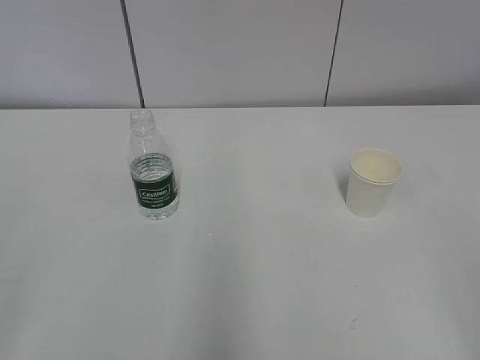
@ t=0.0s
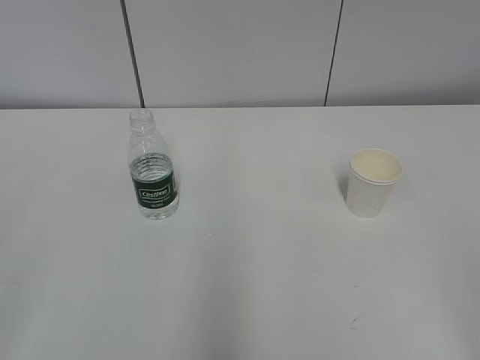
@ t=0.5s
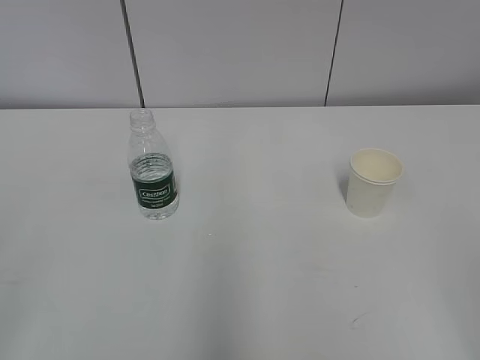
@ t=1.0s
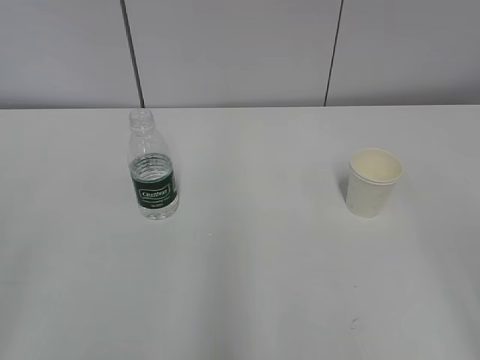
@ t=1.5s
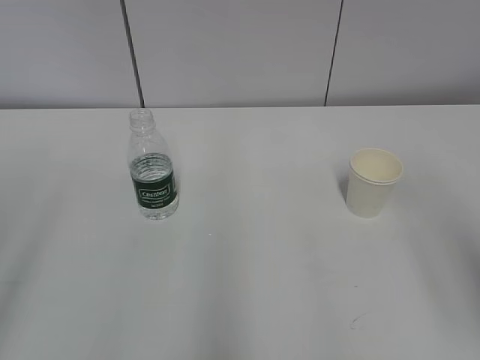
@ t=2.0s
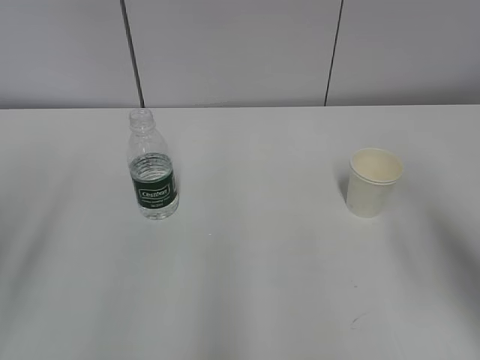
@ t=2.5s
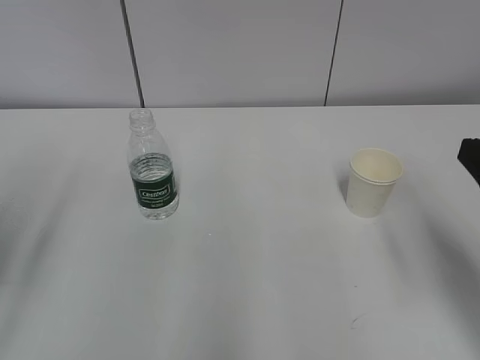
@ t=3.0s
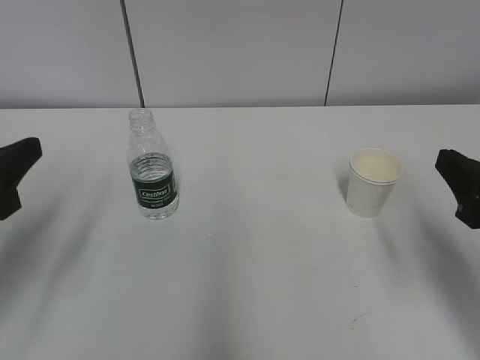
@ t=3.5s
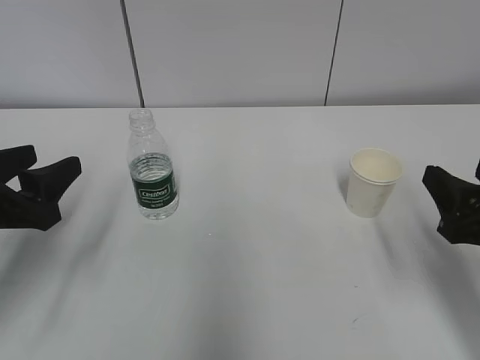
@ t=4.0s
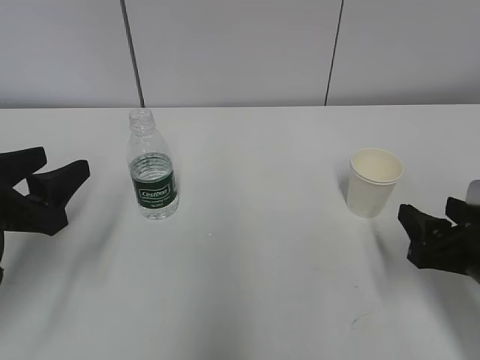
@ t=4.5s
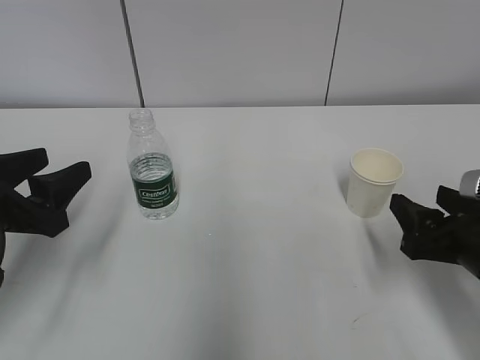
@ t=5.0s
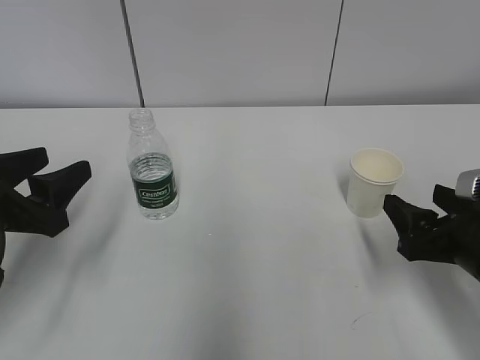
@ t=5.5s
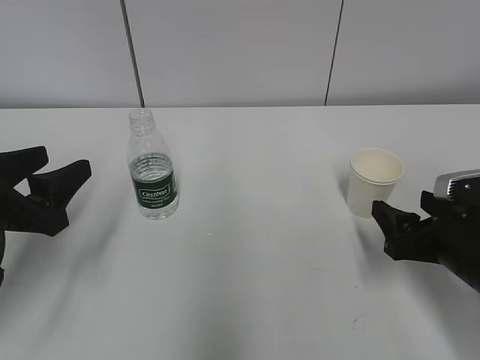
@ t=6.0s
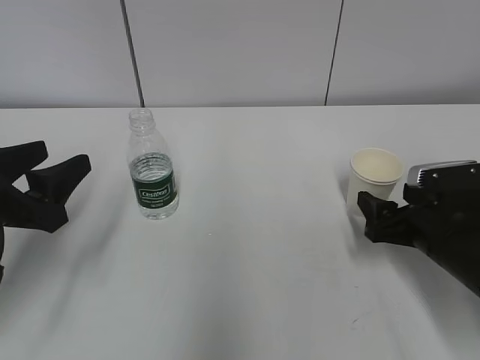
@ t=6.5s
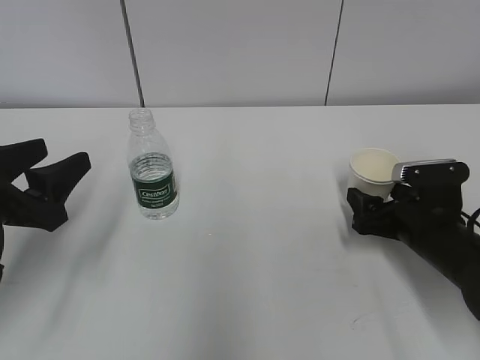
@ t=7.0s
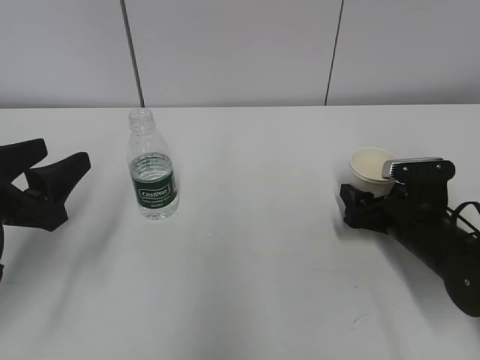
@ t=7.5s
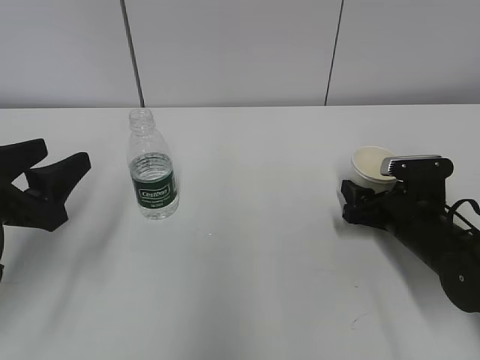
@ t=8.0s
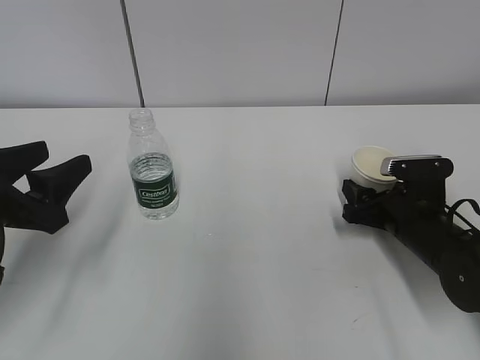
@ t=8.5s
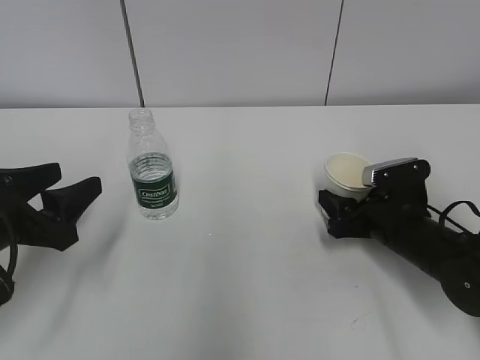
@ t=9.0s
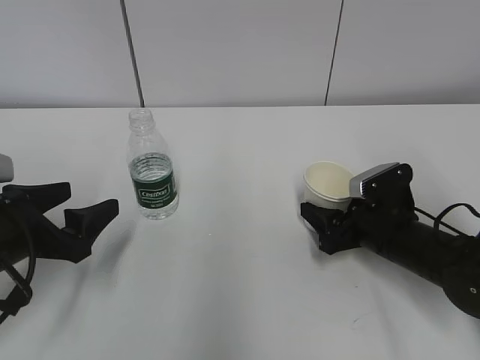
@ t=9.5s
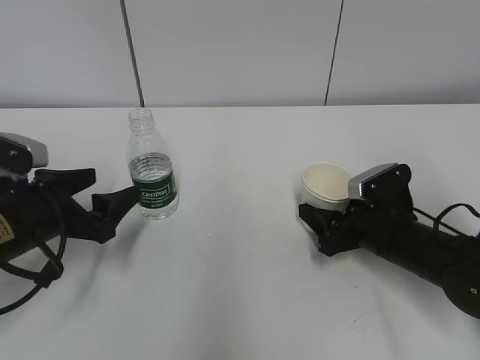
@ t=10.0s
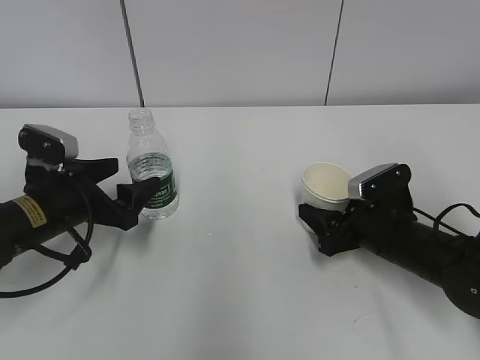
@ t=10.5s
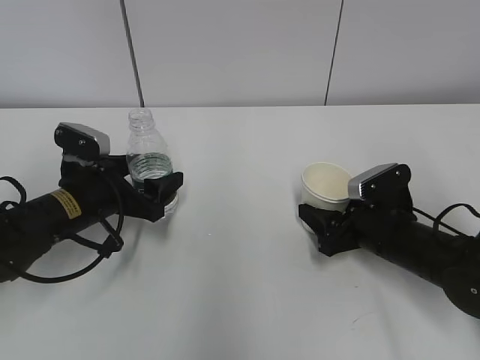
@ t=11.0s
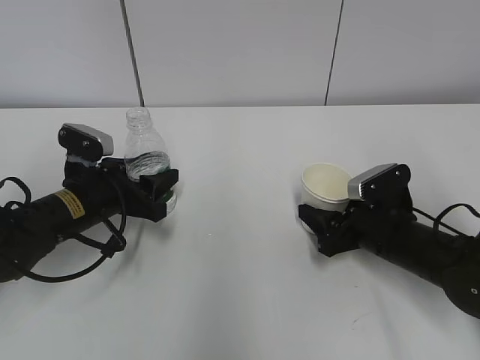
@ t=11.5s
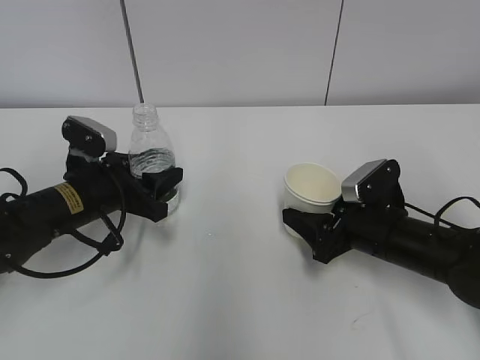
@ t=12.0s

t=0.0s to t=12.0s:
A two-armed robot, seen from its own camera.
Step, t=0.0s to t=6.5s: Grab the paper cup with the right hand.
Step, t=7.0s to t=9.5s: Grab the water bottle with the left hand.
t=2.0s to t=4.0s: The right gripper heads downward and forward, covering about 15 cm. The left gripper heads forward and downward, covering some 20 cm.
t=4.0s to t=6.0s: The right gripper travels downward by about 5 cm, and opens.
t=6.0s to t=8.0s: The right gripper travels forward and downward by roughly 10 cm, and closes up.
t=8.0s to t=10.0s: The right gripper closes up. Meanwhile the left gripper goes roughly 10 cm downward and forward, and opens its fingers.
t=10.0s to t=12.0s: The left gripper is displaced forward by some 5 cm, and closes up.

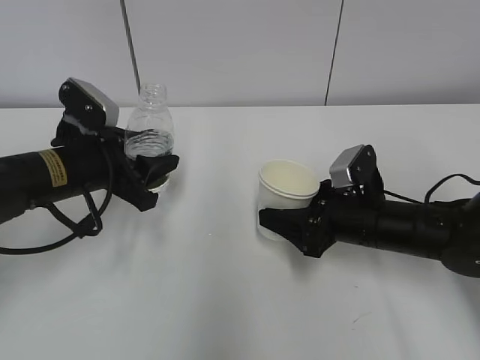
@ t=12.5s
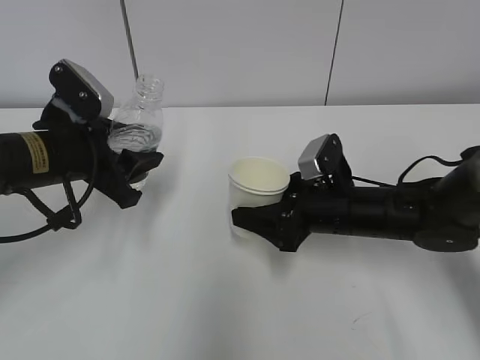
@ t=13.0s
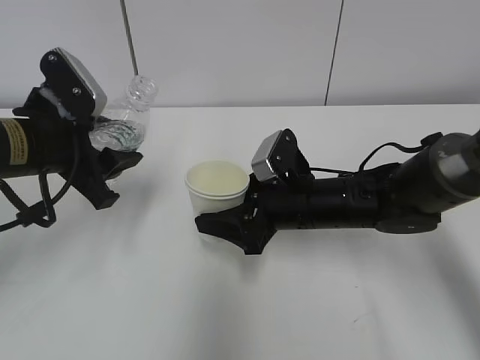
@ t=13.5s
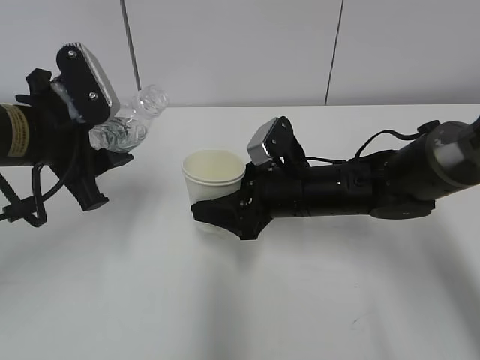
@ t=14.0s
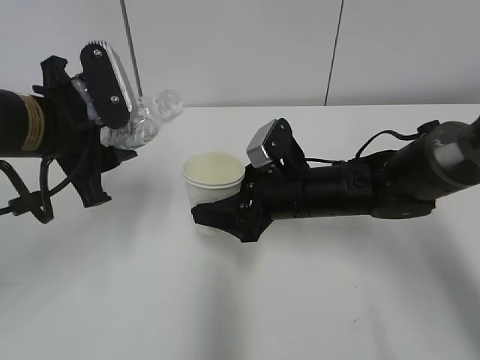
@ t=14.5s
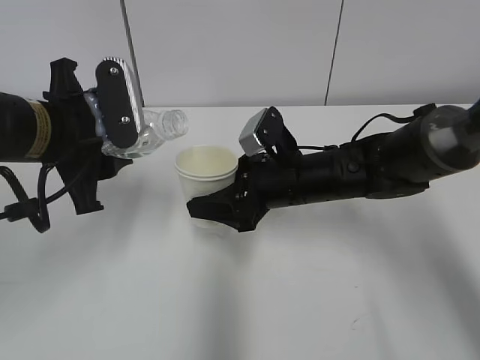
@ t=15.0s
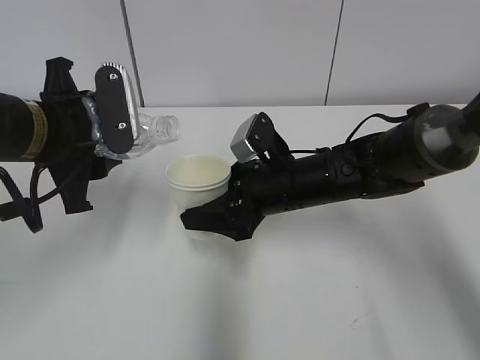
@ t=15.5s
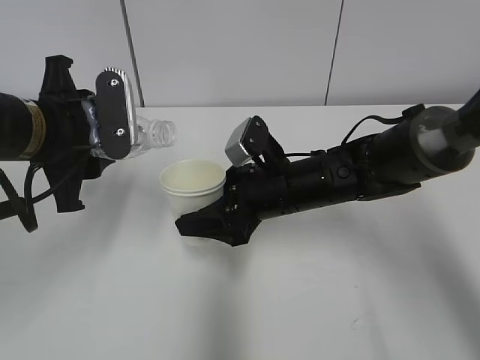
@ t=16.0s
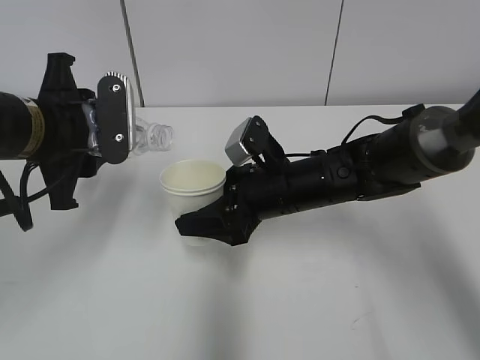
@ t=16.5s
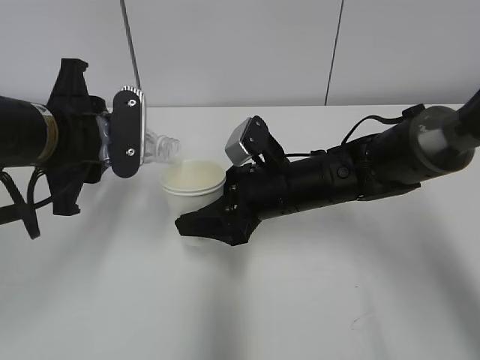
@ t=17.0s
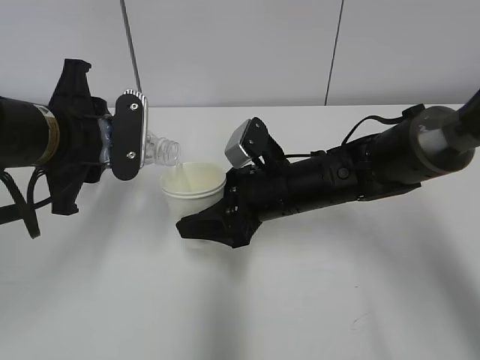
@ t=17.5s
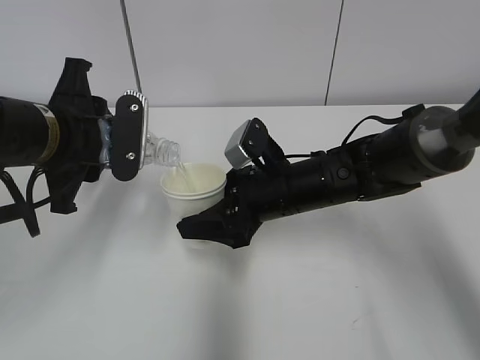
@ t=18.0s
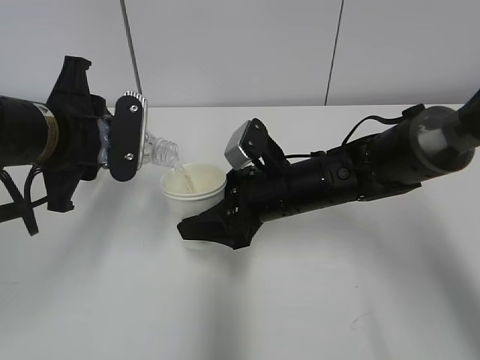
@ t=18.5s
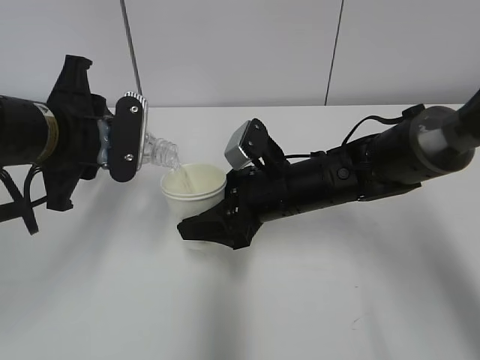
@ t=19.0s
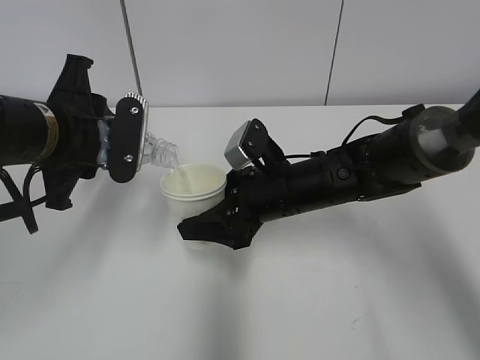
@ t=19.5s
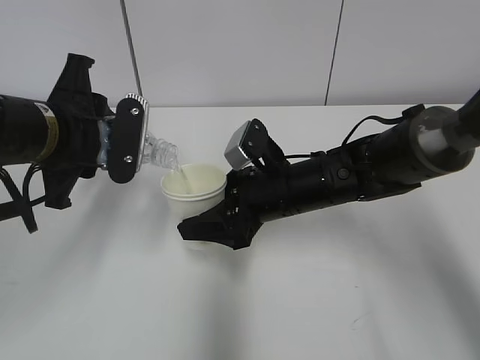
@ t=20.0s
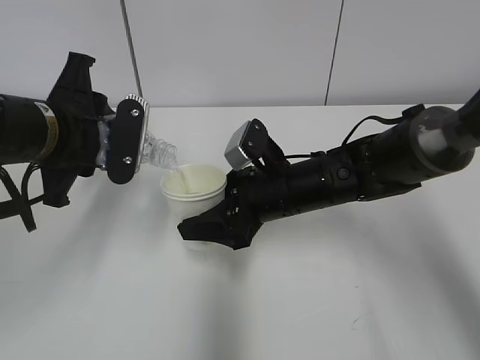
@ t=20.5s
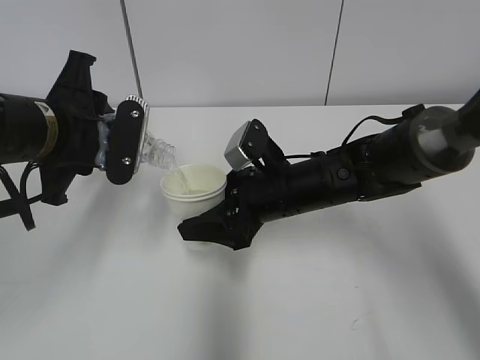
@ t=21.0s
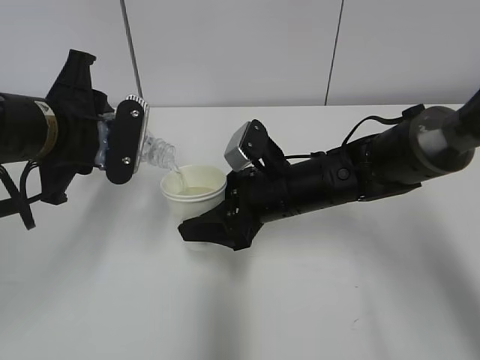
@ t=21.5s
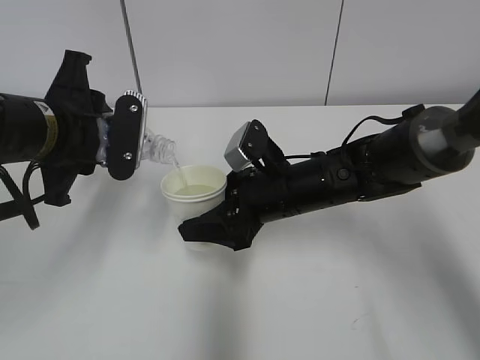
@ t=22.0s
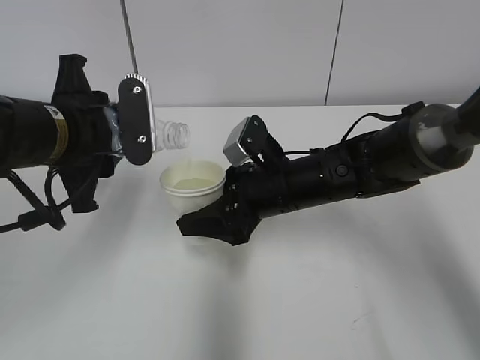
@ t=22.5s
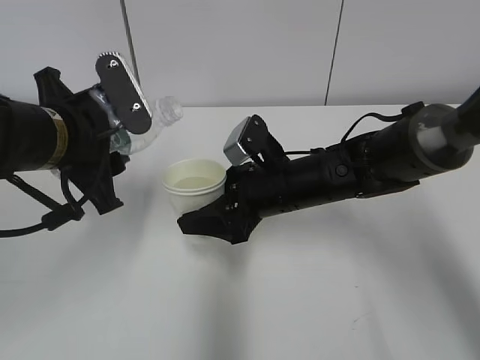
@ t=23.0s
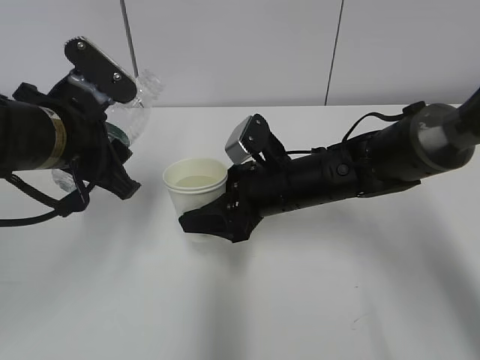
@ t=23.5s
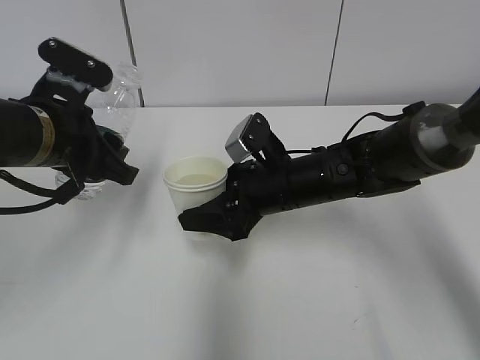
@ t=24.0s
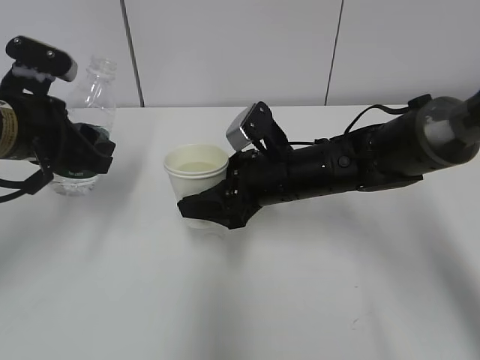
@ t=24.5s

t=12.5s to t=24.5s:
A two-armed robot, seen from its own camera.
Step, t=14.5s to t=18.5s: Fill water with the right hand.
Step, t=14.5s to t=18.5s: Pour water with the left hand.
t=12.5s to t=14.5s: The left gripper is displaced upward by some 10 cm. The right gripper shifts roughly 10 cm to the left.
t=16.5s to t=18.5s: The grippers stay close to where they were, moving slightly.
t=18.5s to t=20.5s: Neither gripper changes place.
t=20.5s to t=22.5s: The grippers move only a little.
t=22.5s to t=24.5s: The left gripper goes roughly 5 cm to the left.

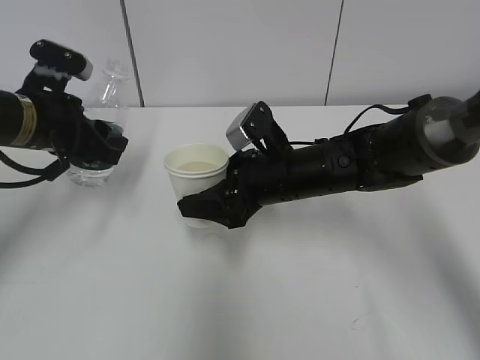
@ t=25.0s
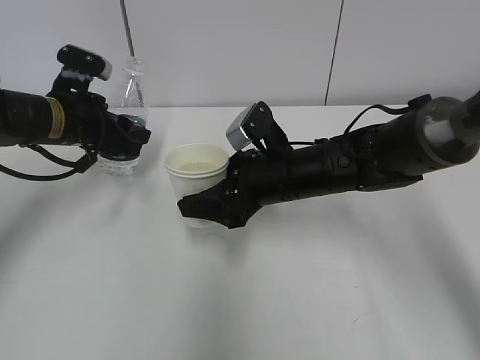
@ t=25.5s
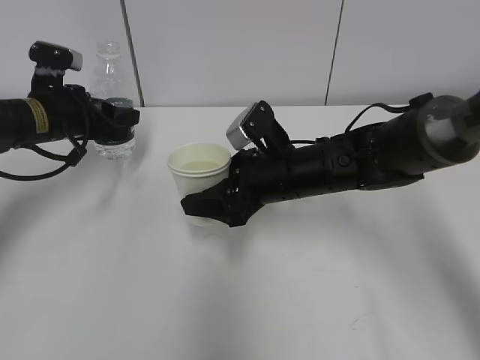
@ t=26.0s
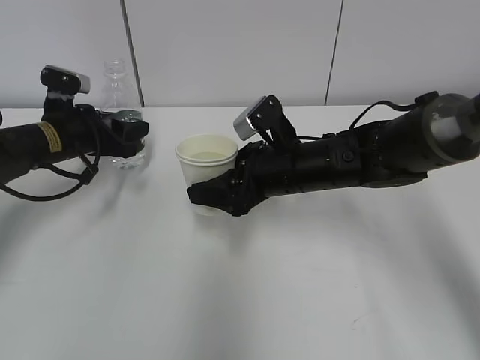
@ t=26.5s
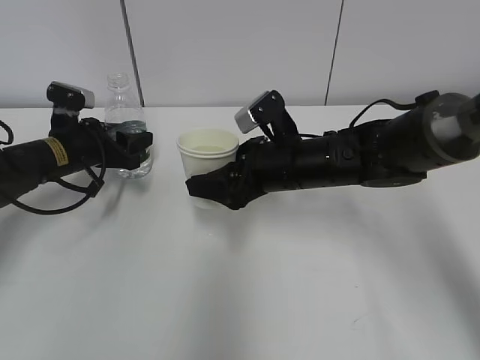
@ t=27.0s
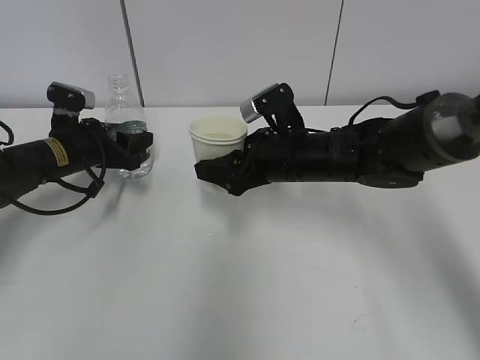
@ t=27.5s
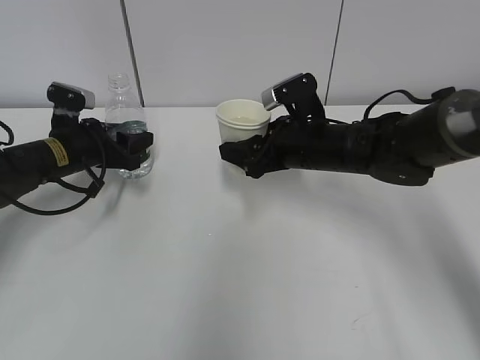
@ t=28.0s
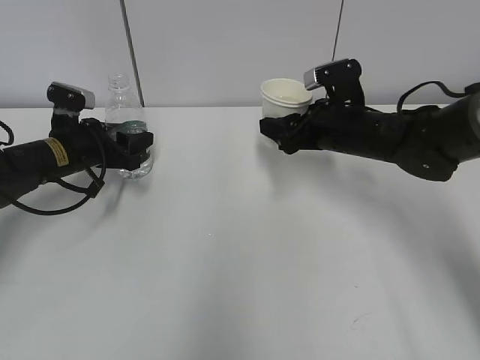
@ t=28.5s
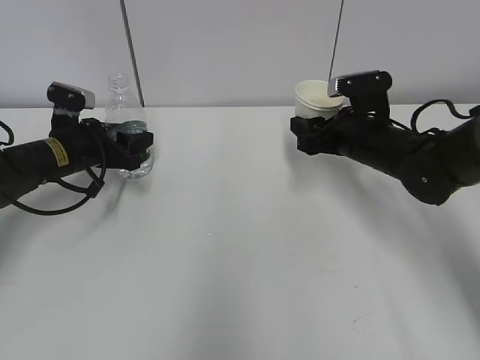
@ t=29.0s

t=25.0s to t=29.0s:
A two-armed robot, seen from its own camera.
Step, t=26.5s to t=28.0s: Place the water bottle with the left hand.
t=25.0s to t=27.0s: The left gripper shifts about 10 cm downward and forward.
t=27.0s to t=29.0s: The right gripper is displaced to the right by approximately 10 cm.
